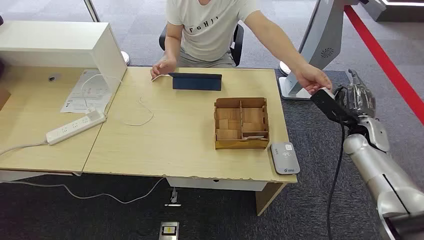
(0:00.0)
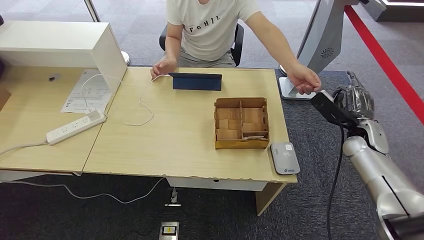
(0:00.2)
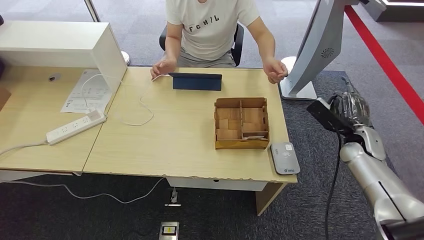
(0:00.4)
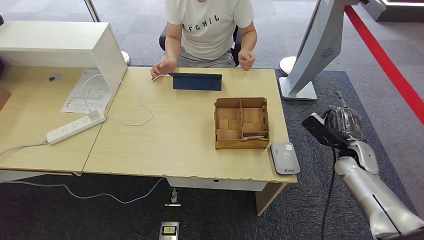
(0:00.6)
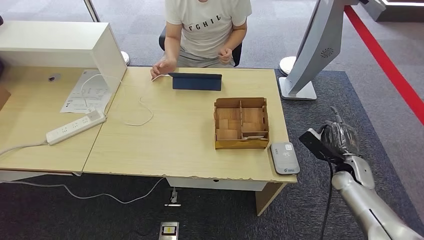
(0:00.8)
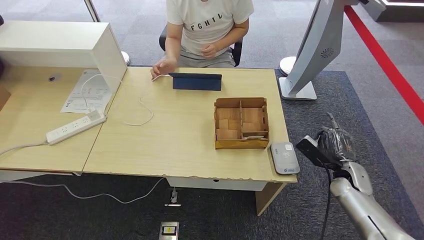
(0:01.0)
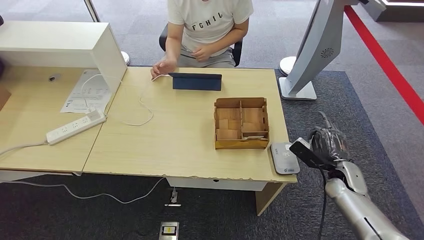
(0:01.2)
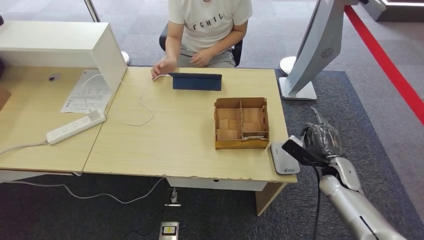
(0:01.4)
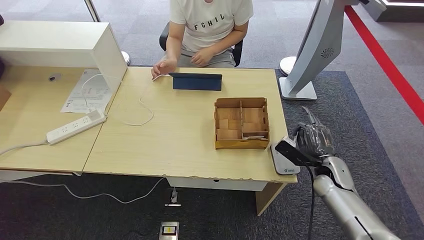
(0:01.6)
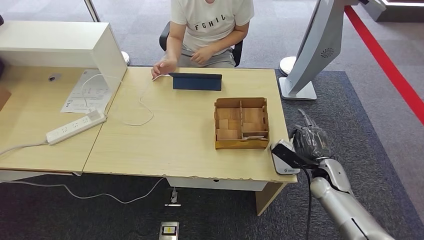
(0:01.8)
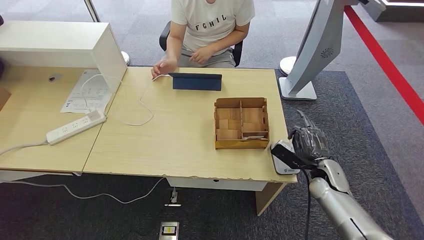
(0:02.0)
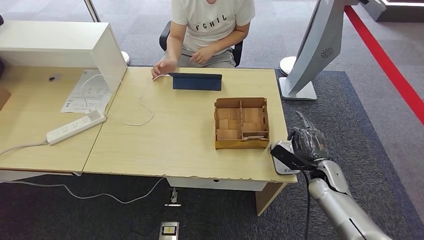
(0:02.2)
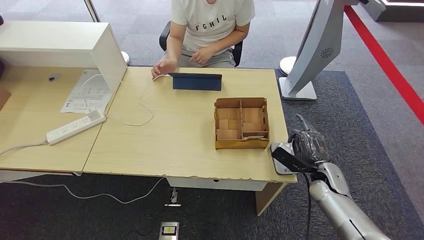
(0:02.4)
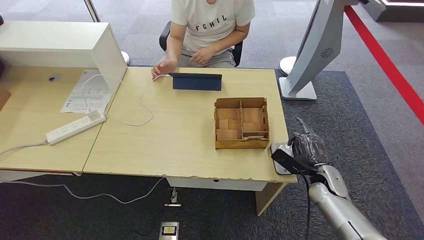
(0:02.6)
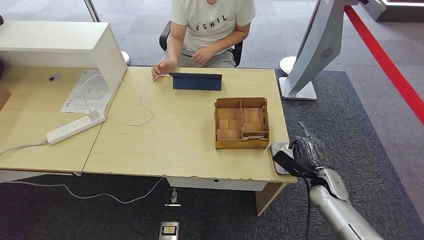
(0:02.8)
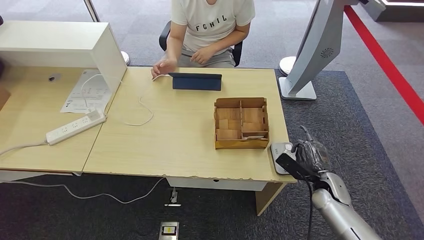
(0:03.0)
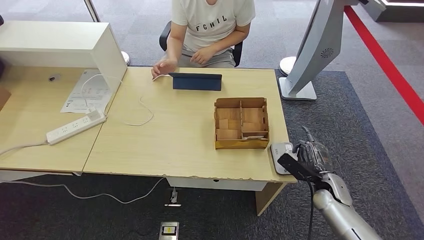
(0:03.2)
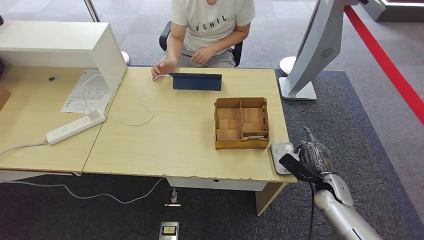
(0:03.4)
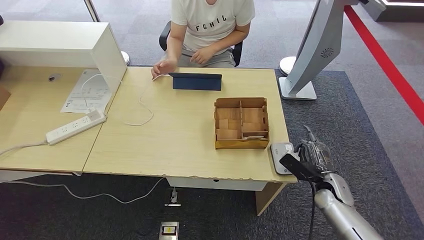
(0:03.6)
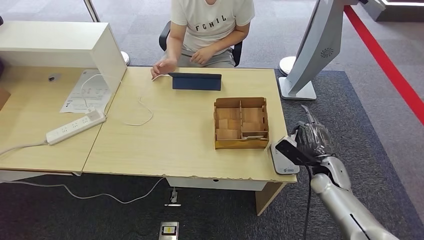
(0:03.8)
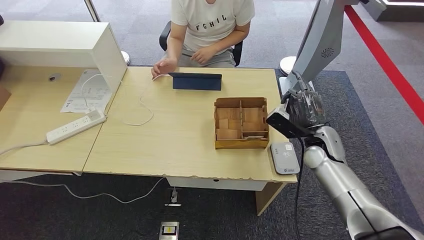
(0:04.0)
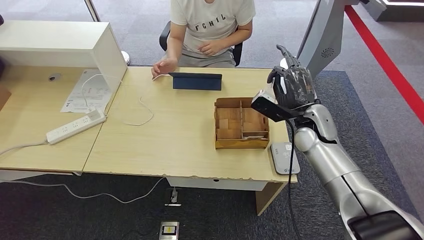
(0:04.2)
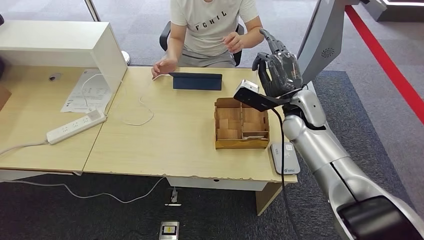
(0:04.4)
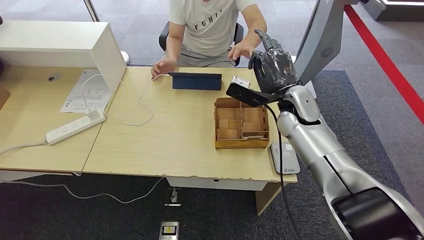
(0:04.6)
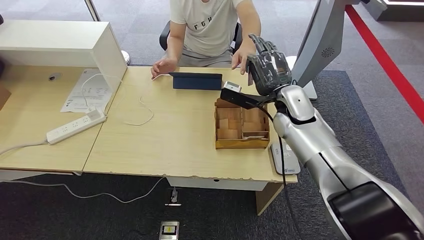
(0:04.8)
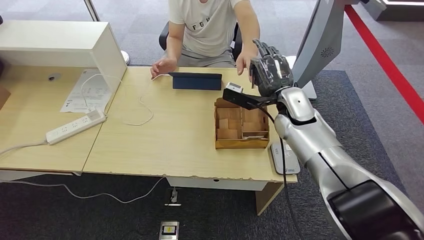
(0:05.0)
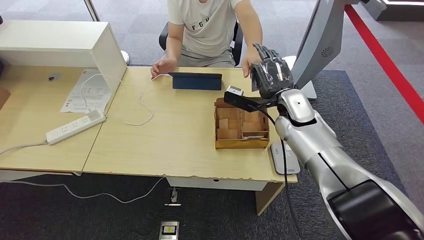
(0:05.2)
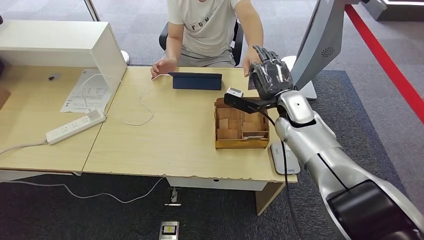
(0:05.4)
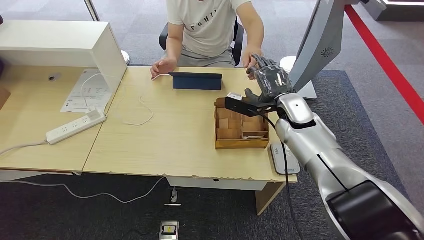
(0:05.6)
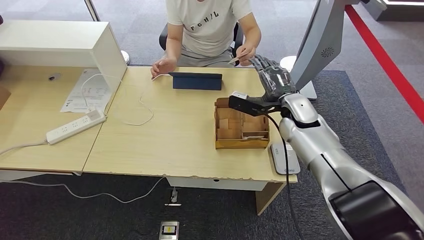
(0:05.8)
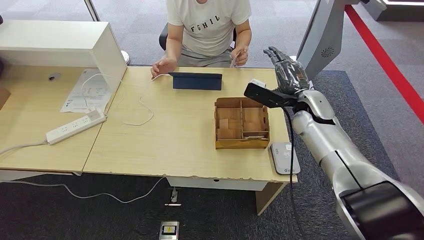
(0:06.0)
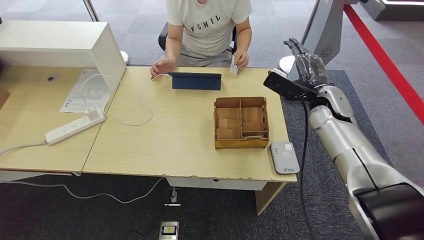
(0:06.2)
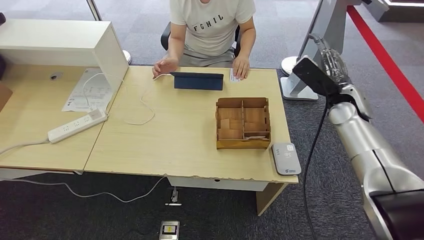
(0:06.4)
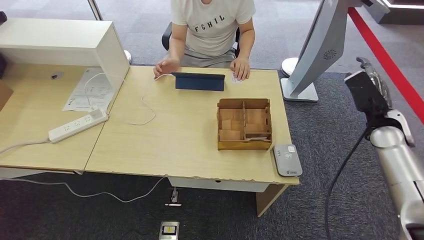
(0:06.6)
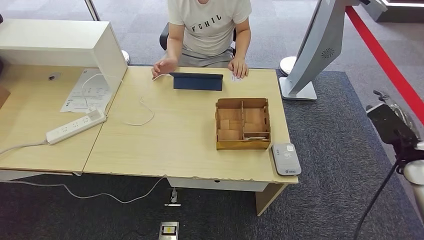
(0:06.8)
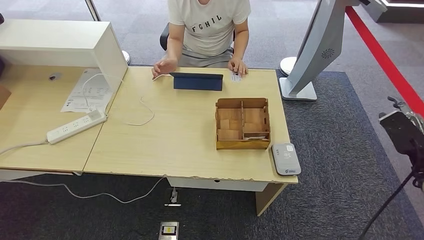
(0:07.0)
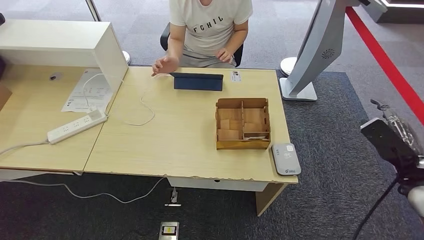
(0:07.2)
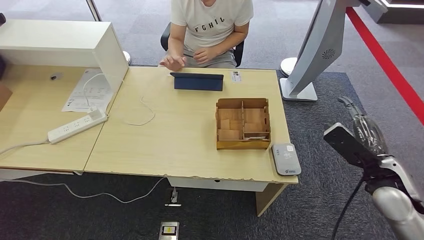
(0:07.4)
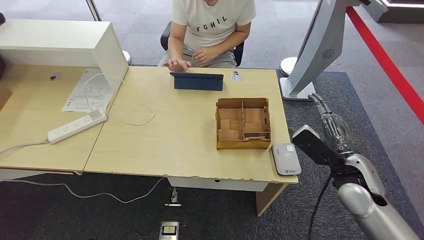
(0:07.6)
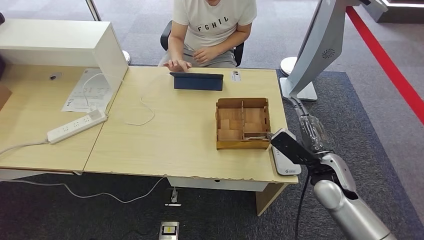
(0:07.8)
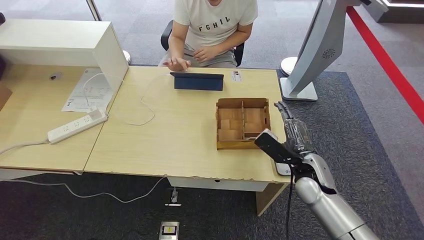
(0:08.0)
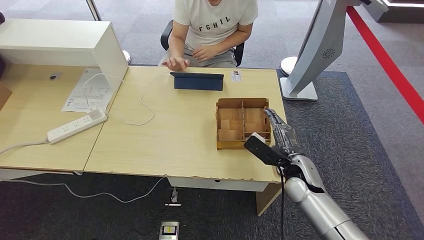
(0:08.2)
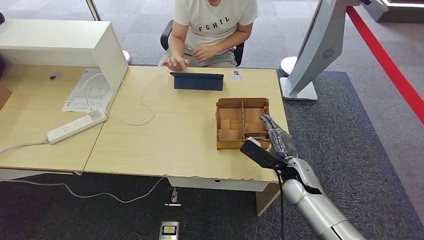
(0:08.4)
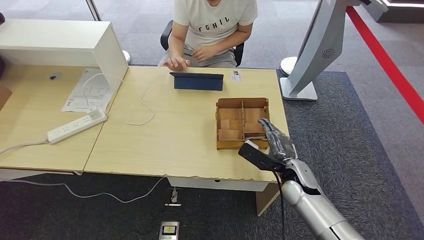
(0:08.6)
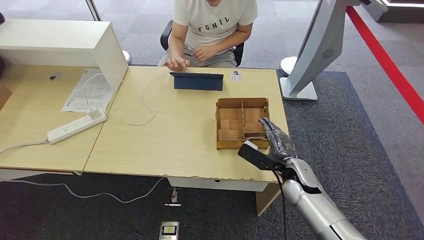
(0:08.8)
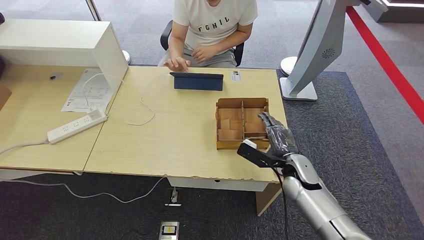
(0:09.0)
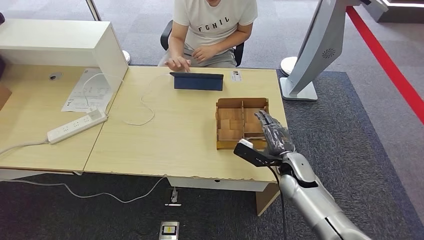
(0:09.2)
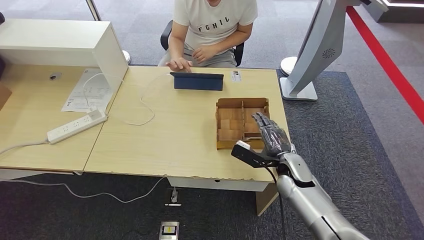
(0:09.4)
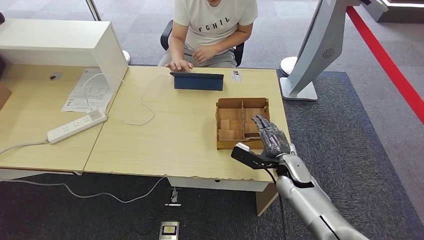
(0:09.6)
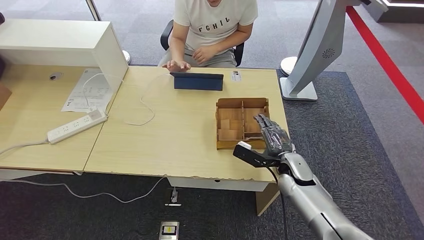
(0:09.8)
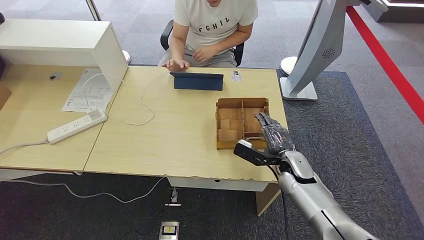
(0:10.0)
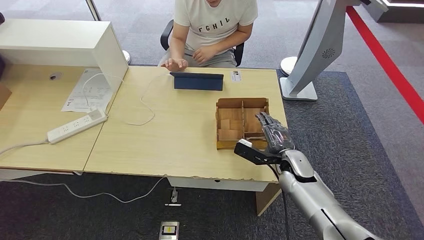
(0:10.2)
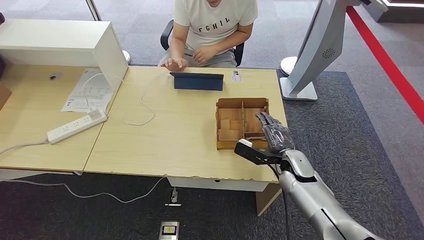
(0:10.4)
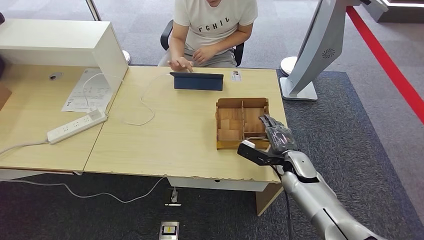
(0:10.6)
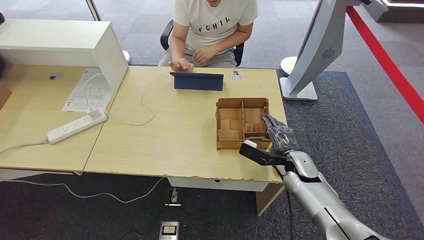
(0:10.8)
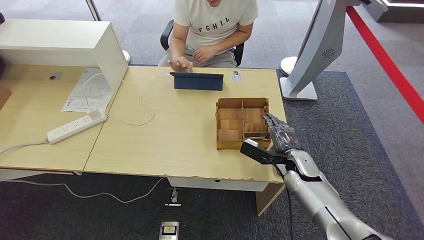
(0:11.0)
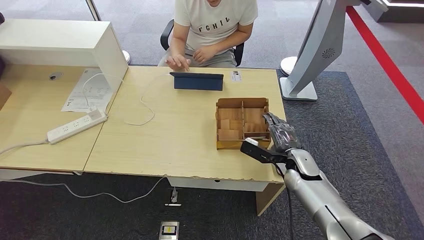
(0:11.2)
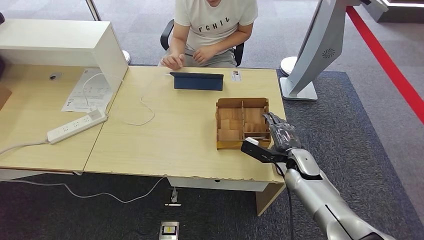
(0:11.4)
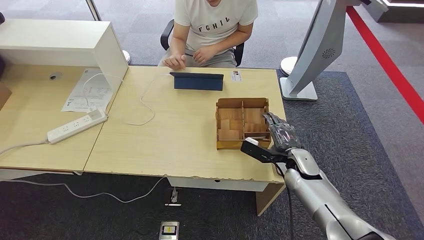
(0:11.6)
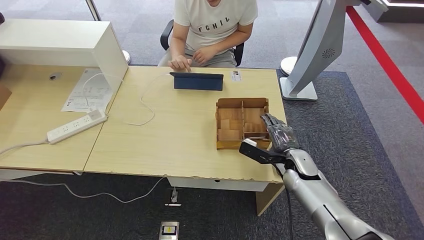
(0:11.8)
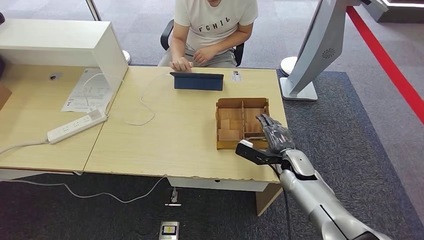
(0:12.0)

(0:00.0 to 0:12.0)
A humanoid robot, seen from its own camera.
Step, 0:00.0 - 0:01.0: Take the ID card from the person's hand.
Step, 0:01.2 - 0:04.2: Place the ID card on the card reader.
Step, 0:04.4 - 0:06.6: Hand the ID card to the person.
0:01.6 - 0:03.0: The right hand shifts by roughly 5 cm.
0:03.0 - 0:04.4: The right hand travels upward, to the left and forward by about 30 cm.
0:06.0 - 0:07.6: The right hand shifts roughly 15 cm backward, and moves approximately 25 cm to the right and comes back.
0:07.6 - 0:09.0: The right hand moves to the left and downward, roughly 15 cm.
0:09.0 - 0:12.0: The hands move only a little.

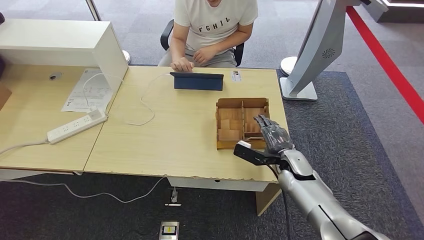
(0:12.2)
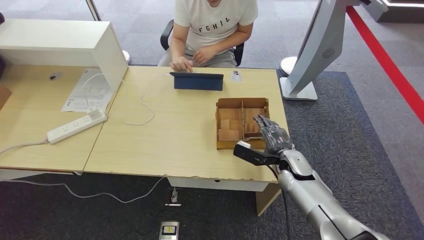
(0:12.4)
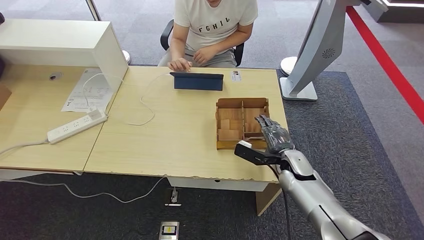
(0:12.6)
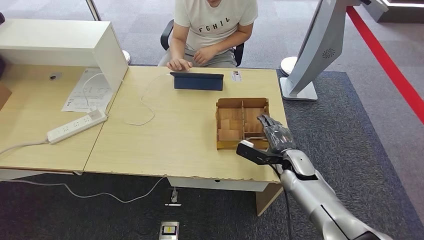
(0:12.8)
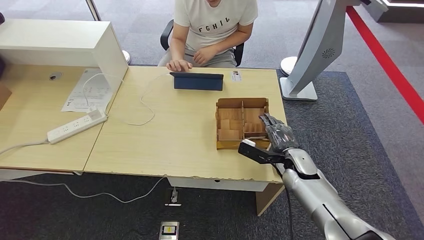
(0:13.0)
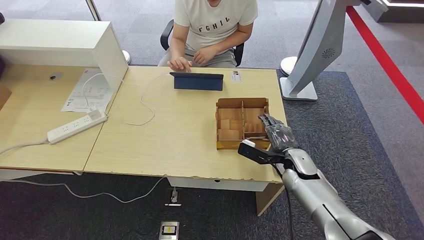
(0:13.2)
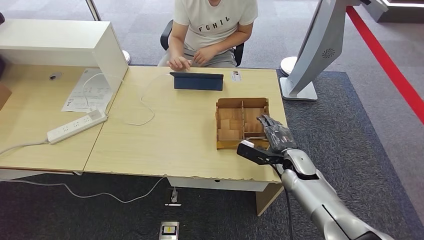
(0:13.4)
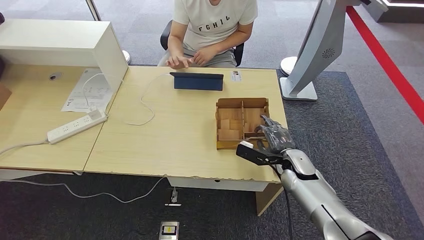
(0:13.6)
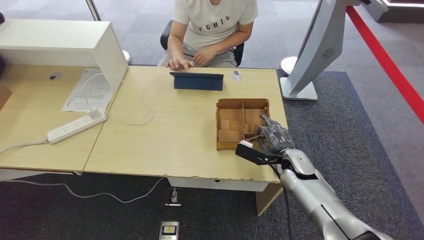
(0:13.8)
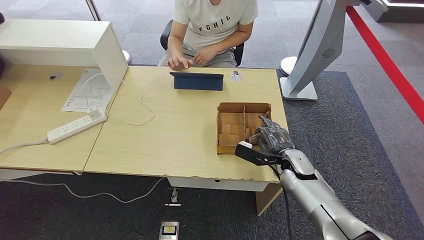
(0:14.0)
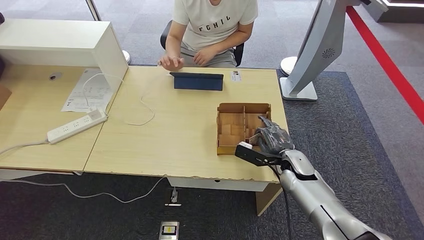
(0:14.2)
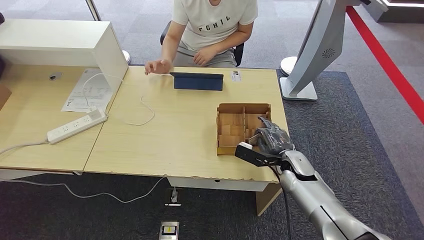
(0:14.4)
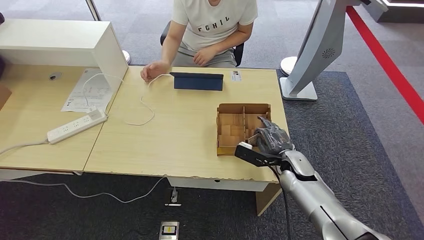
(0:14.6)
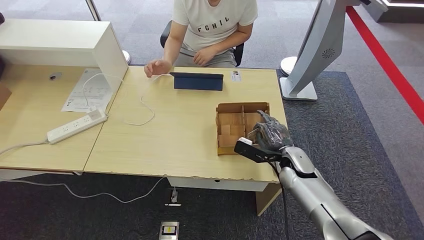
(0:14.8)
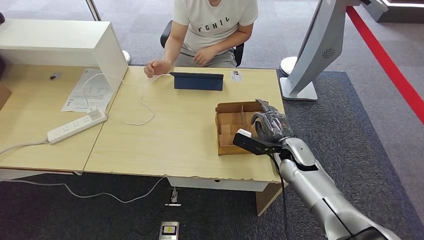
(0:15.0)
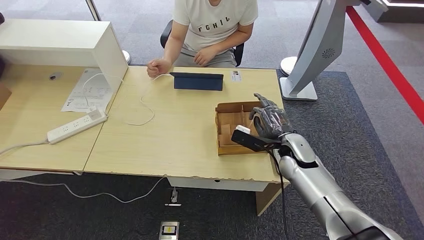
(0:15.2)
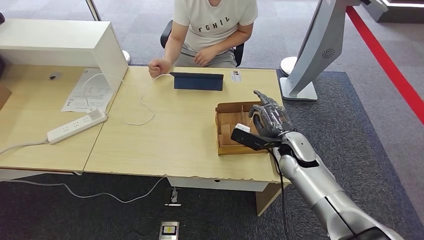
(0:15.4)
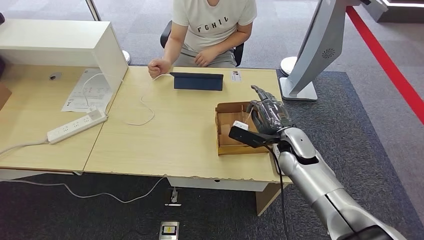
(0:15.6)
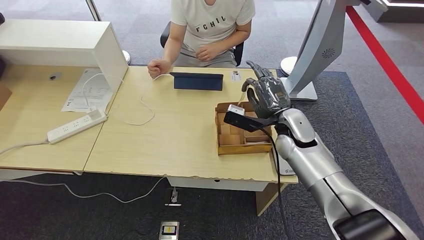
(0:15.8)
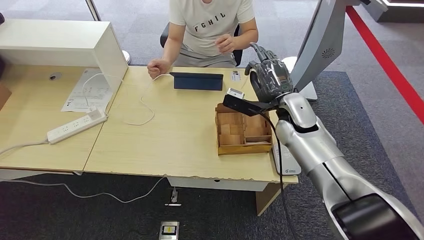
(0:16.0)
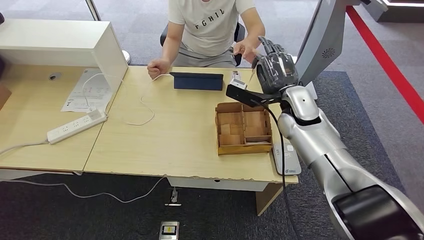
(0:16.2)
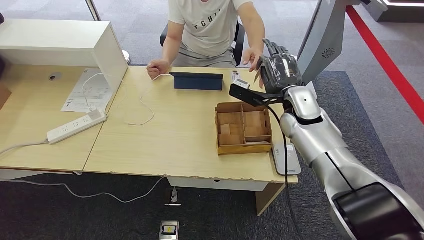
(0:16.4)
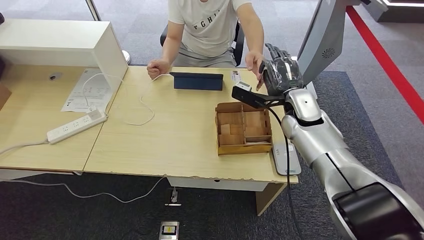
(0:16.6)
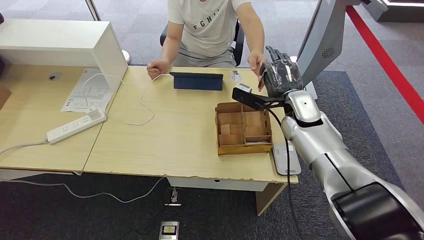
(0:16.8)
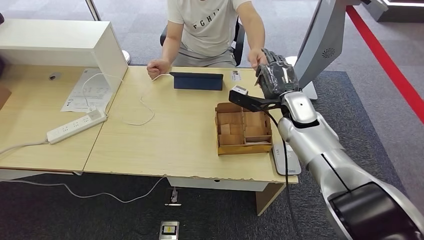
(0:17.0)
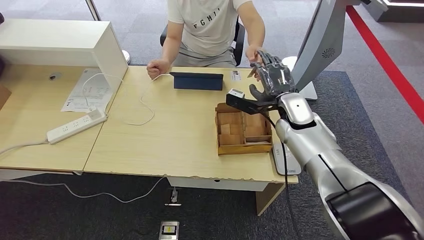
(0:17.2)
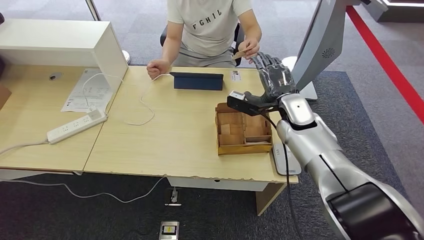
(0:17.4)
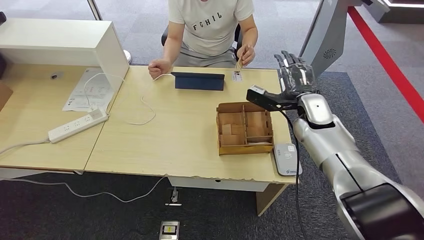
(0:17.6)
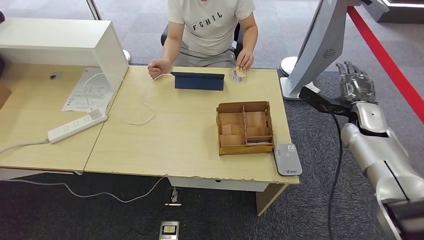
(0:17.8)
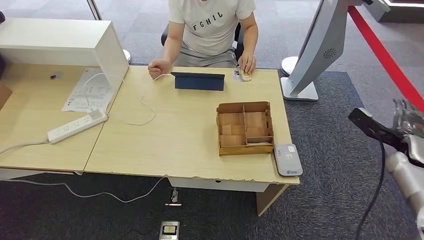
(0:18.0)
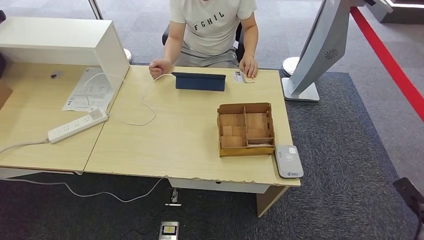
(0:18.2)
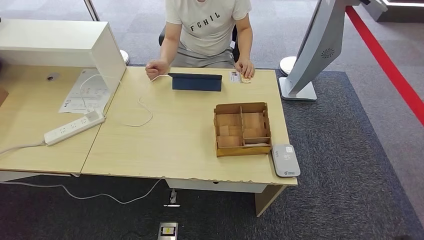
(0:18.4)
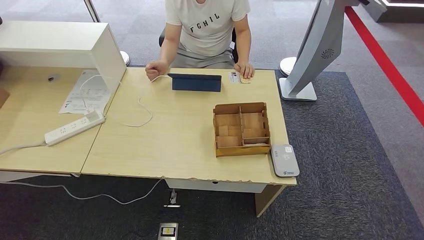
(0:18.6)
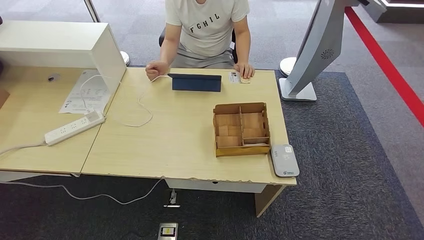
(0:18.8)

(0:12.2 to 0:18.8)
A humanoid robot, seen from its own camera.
Step, 0:12.2 - 0:15.6: Pick up the room key from the key card box.
0:12.2 - 0:13.8: Both hands stay put.
0:13.8 - 0:15.4: The right hand heads upward, covering about 5 cm.
0:15.4 - 0:17.2: The right hand shifts roughly 10 cm upward and forward.
0:17.2 - 0:18.8: The right hand shifts some 60 cm backward, downward and to the right.
